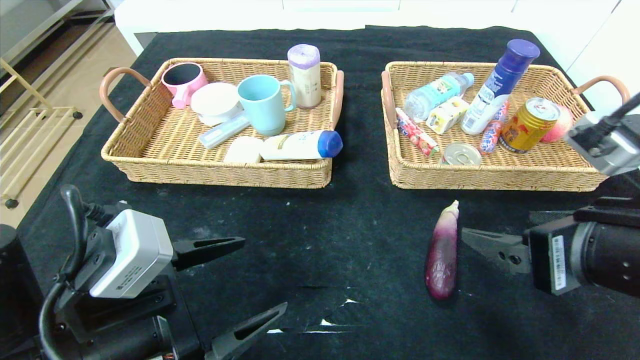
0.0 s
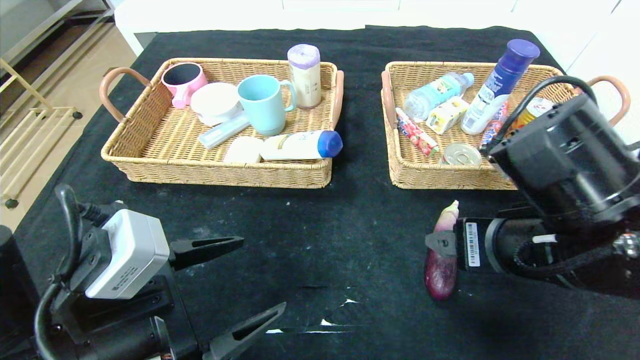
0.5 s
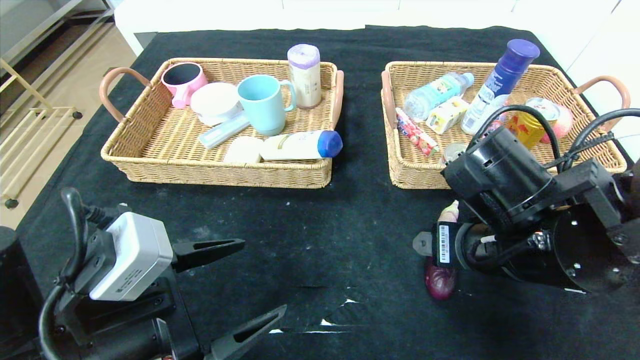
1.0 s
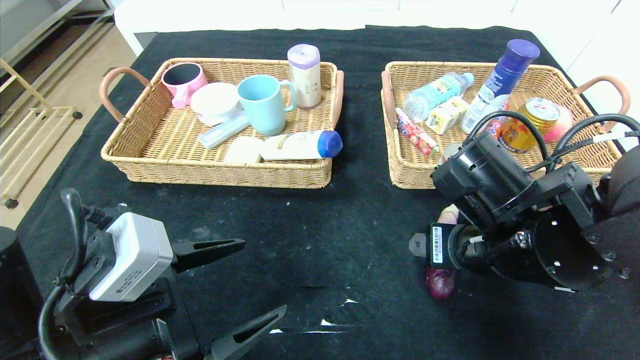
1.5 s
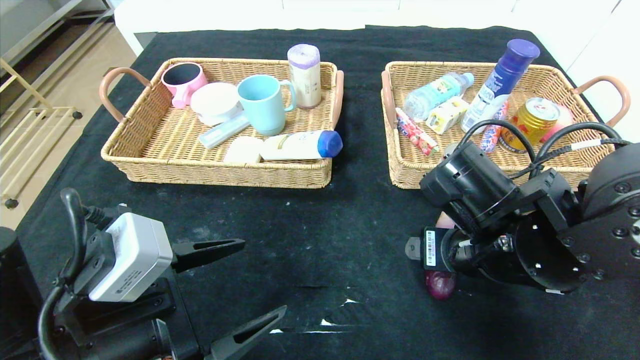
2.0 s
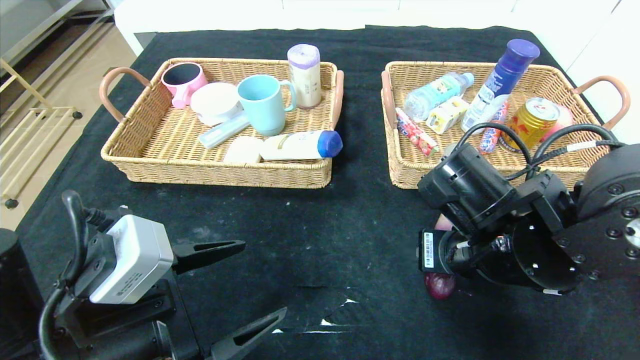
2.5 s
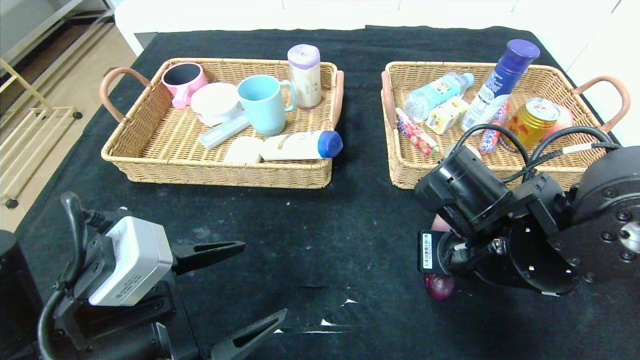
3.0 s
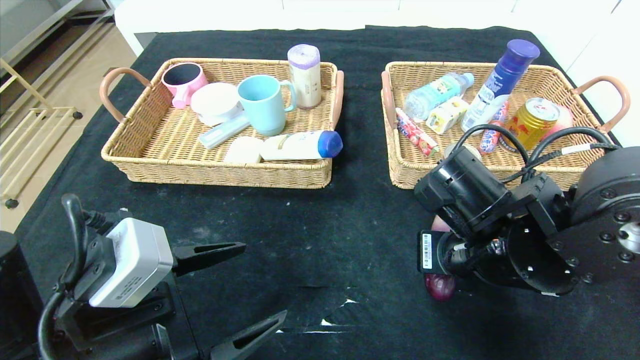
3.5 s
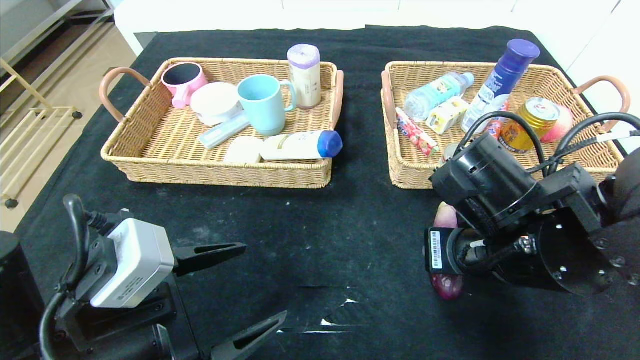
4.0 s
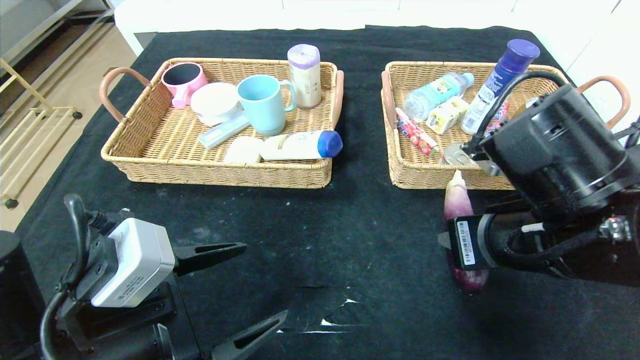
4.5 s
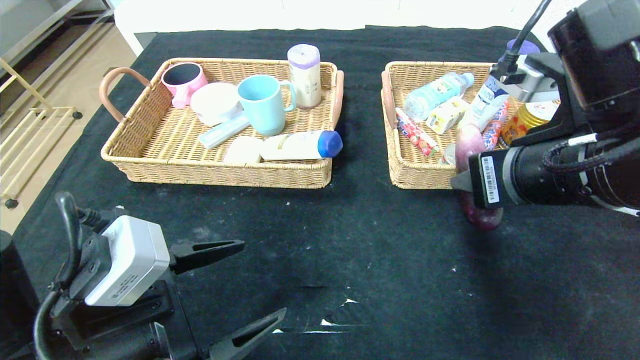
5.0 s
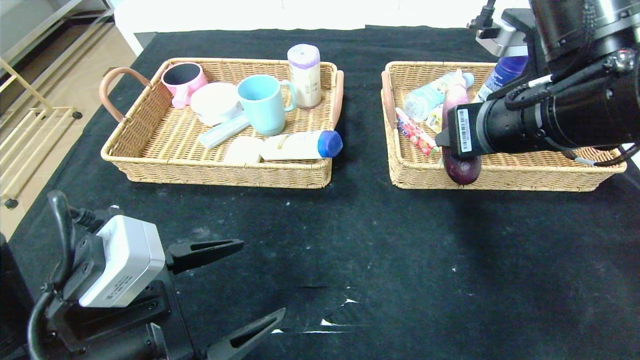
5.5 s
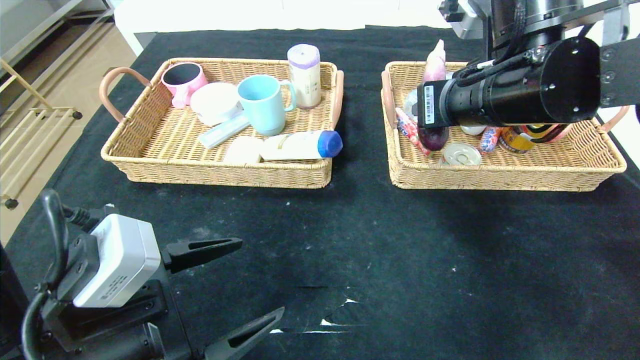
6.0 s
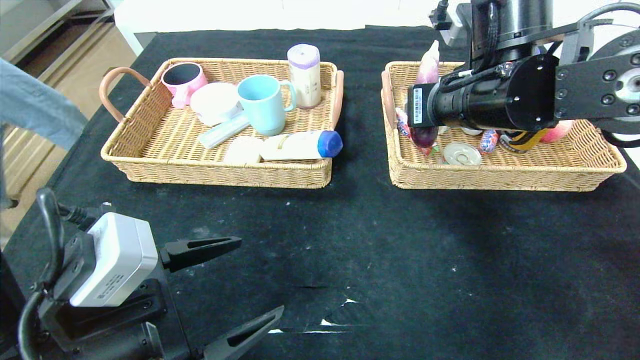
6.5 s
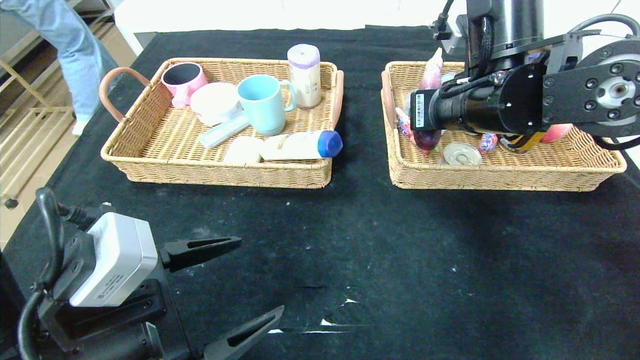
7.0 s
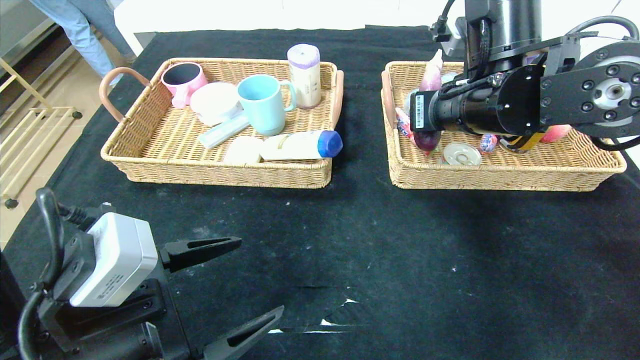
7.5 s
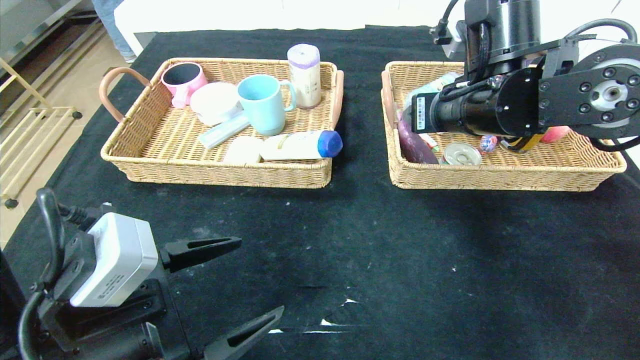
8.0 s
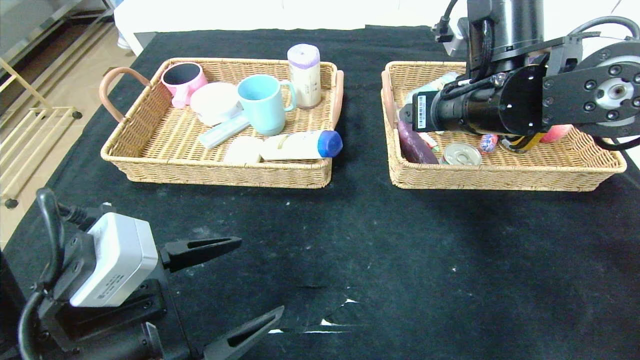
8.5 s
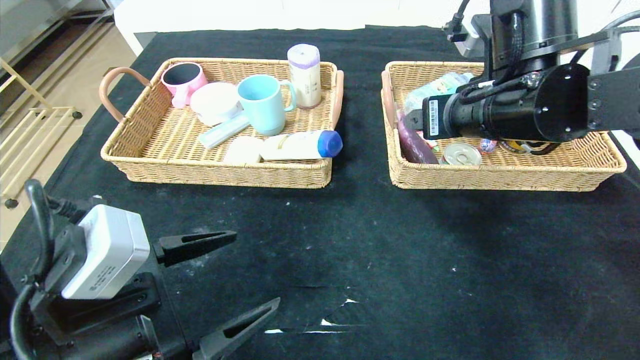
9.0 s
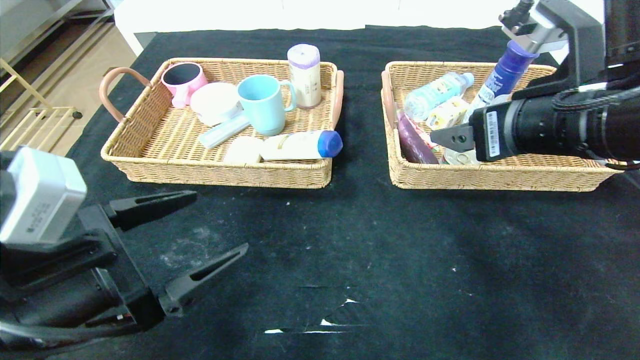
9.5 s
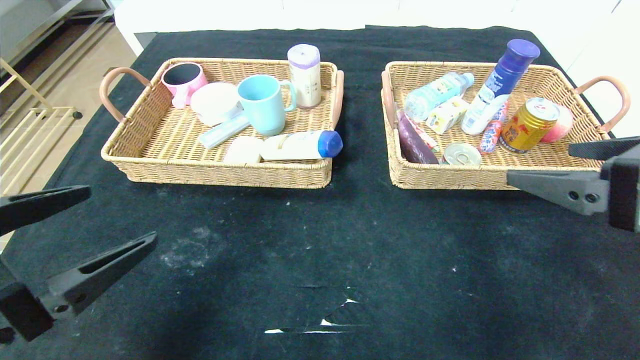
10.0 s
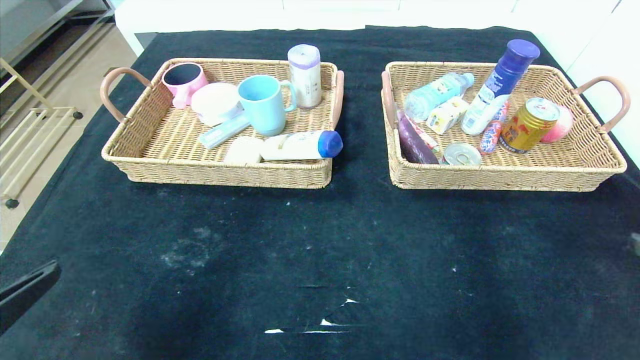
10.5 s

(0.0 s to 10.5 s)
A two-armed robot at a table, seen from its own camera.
Step, 0.0 s - 10.5 s: Pick up the eggplant and put it in the right basket.
0.0 s - 2.0 s: The right gripper goes about 10 cm forward, to the left and downward.
2.0 s - 4.0 s: The right gripper closes up.
4.0 s - 6.5 s: The right gripper heads upward and forward, covering approximately 15 cm.
6.5 s - 8.5 s: The right gripper opens its fingers.
8.5 s - 10.5 s: The right gripper goes roughly 30 cm backward and to the right; the left gripper goes roughly 15 cm to the left, backward and upward.

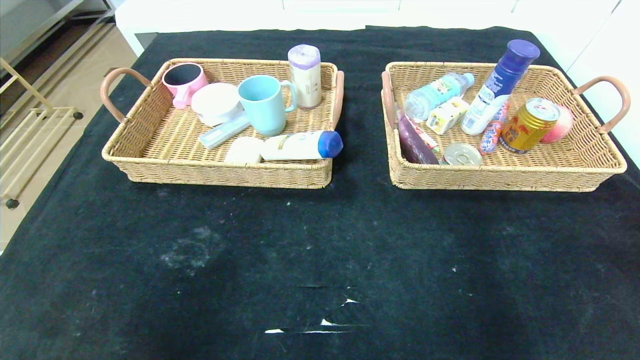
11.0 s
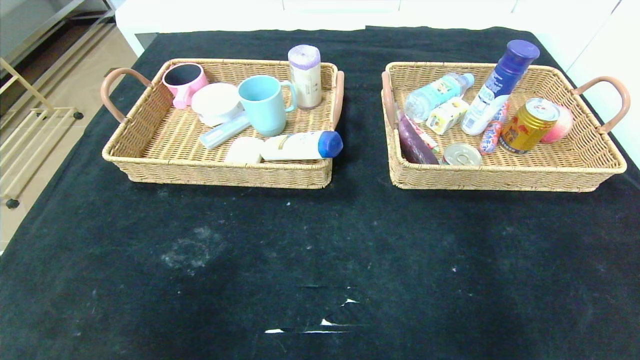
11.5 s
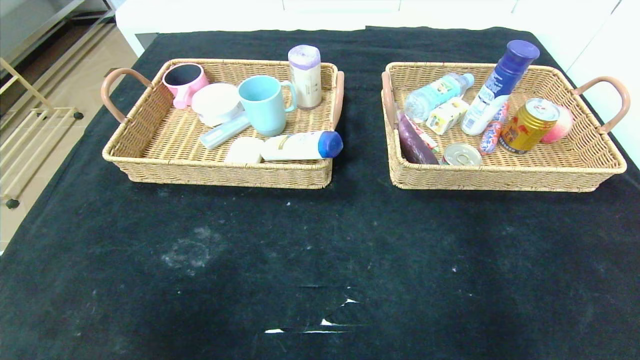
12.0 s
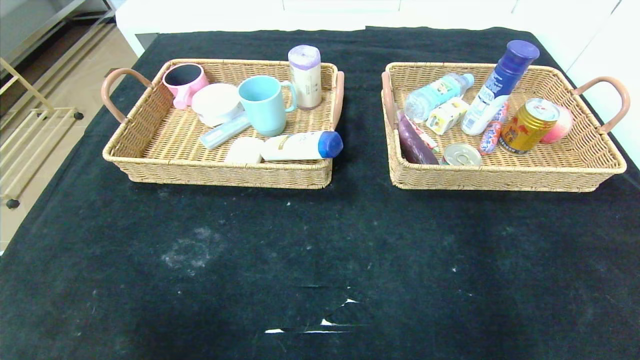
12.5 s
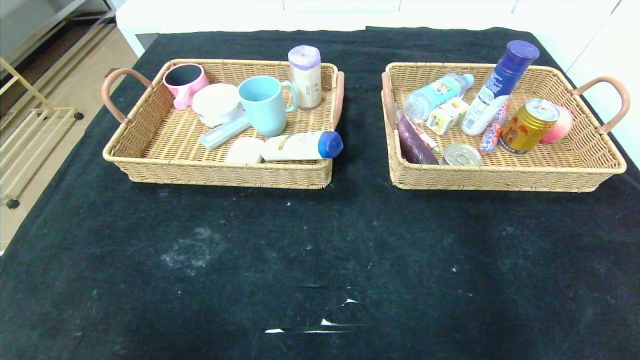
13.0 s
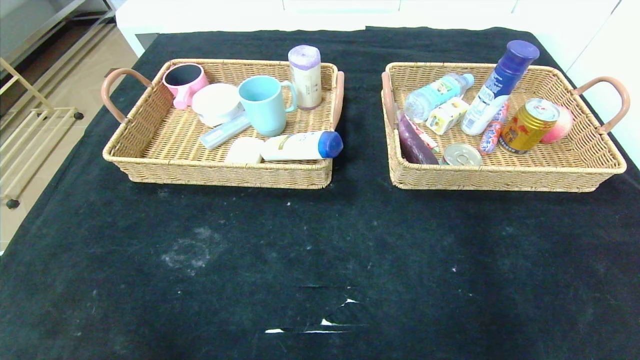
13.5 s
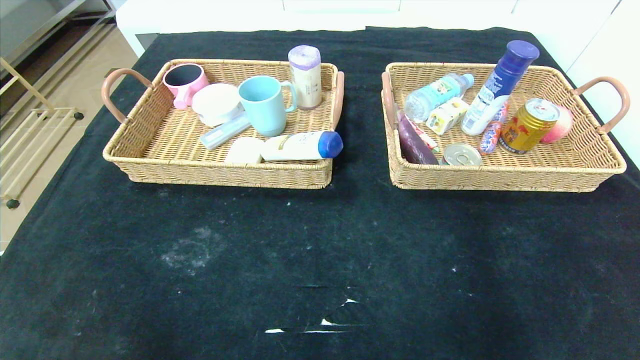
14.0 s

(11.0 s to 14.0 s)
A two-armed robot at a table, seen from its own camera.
11.0 s - 12.5 s: The left gripper heads backward and downward, covering about 10 cm.
